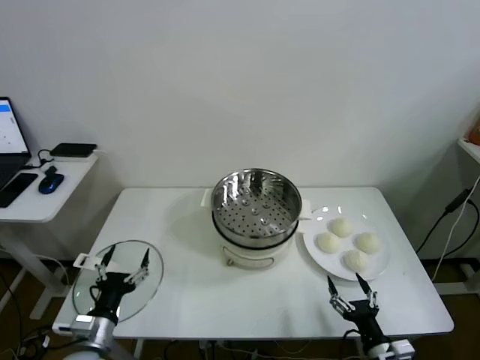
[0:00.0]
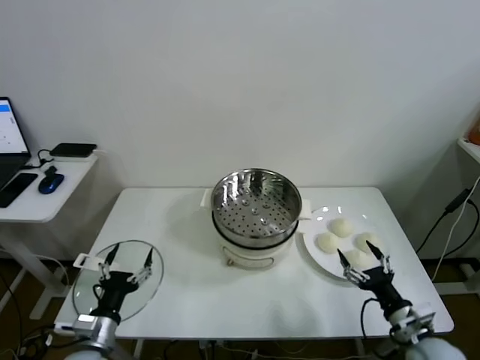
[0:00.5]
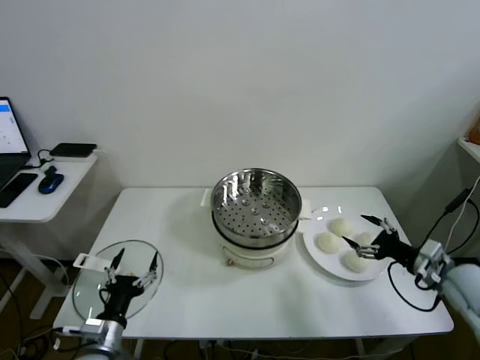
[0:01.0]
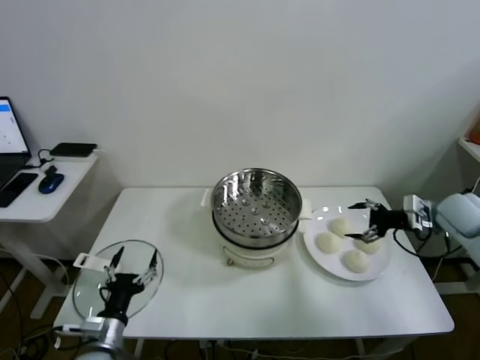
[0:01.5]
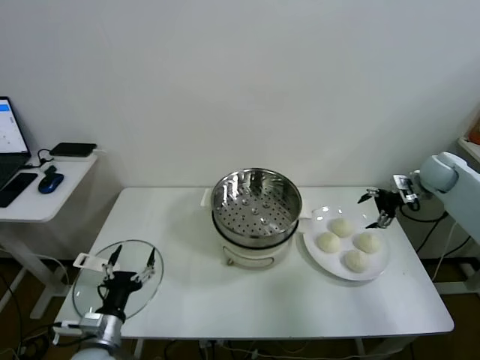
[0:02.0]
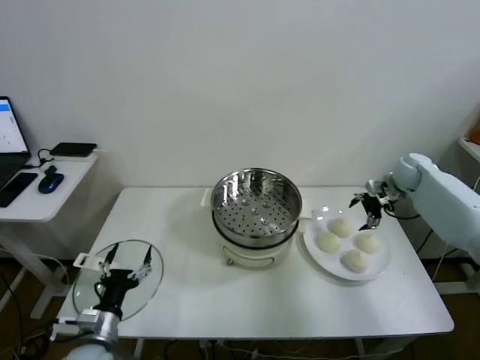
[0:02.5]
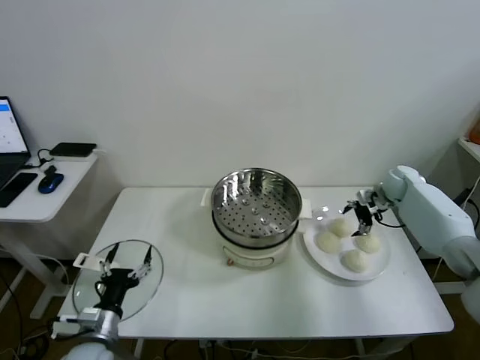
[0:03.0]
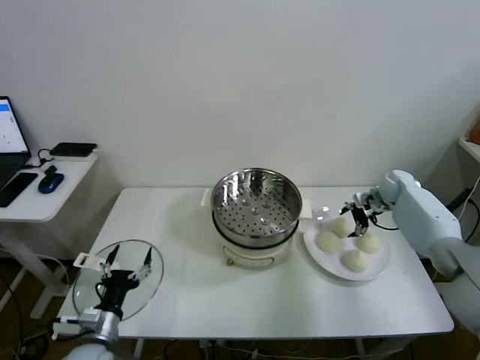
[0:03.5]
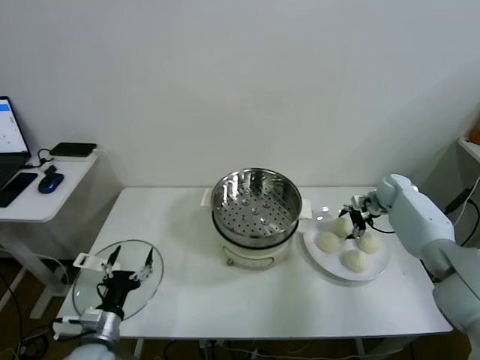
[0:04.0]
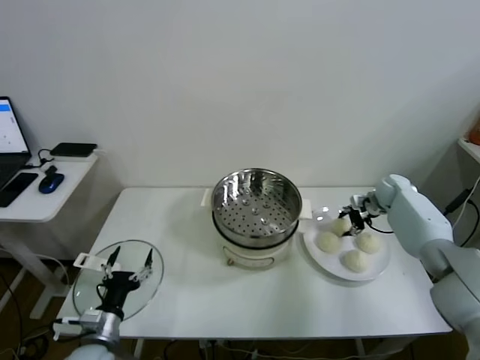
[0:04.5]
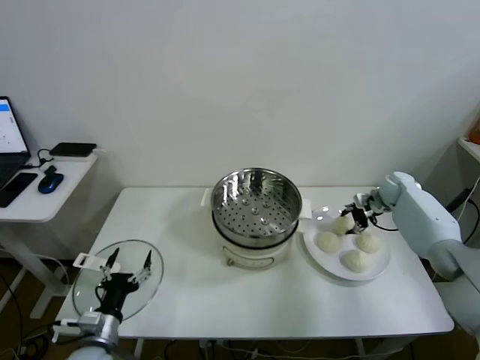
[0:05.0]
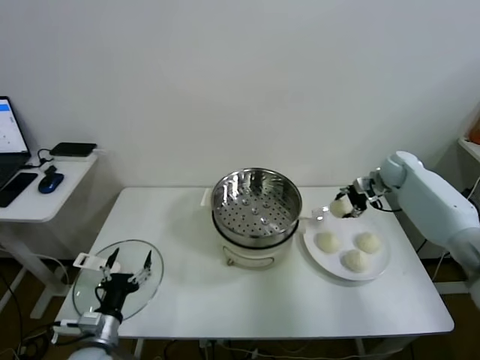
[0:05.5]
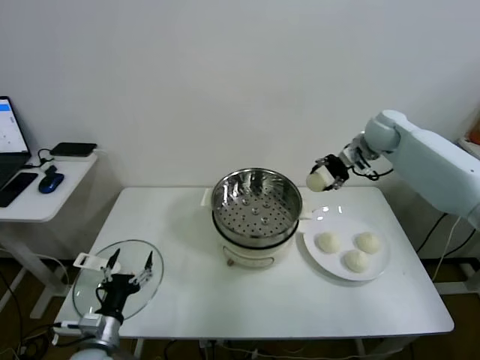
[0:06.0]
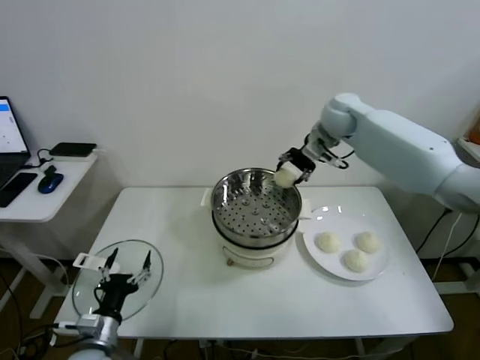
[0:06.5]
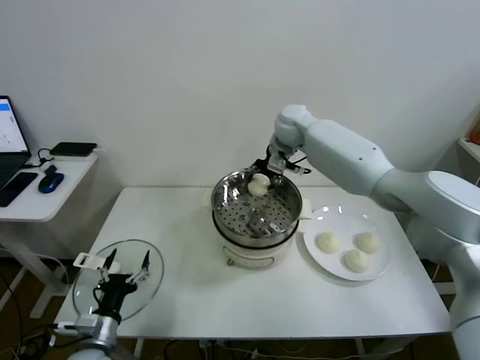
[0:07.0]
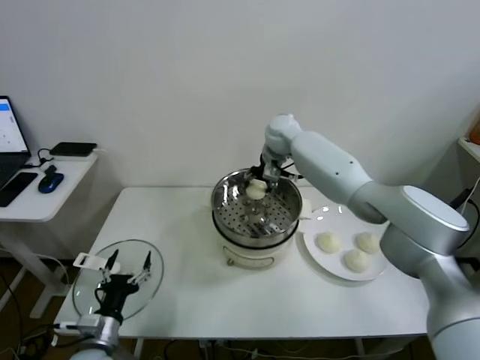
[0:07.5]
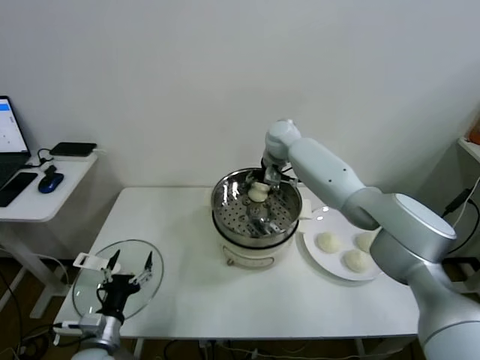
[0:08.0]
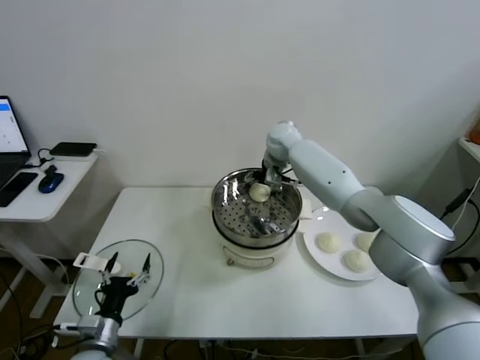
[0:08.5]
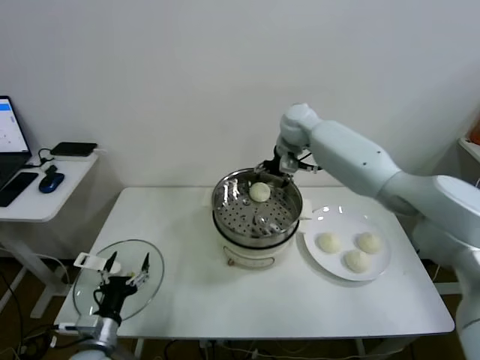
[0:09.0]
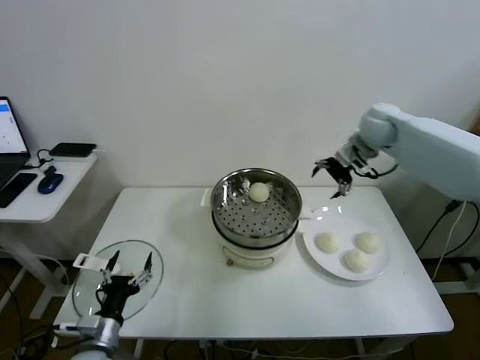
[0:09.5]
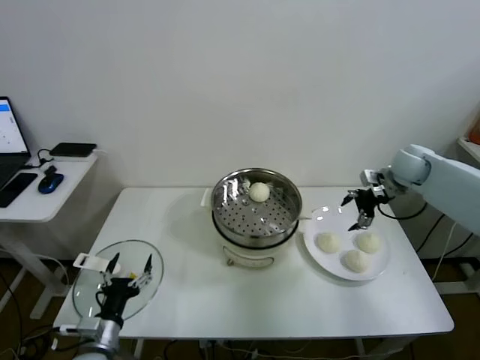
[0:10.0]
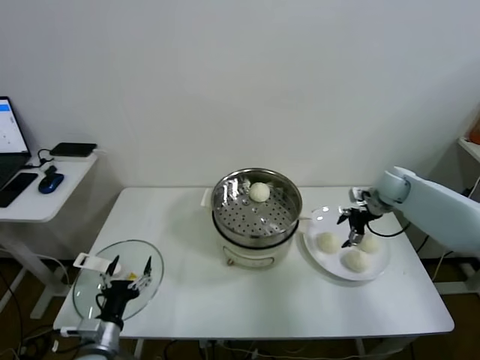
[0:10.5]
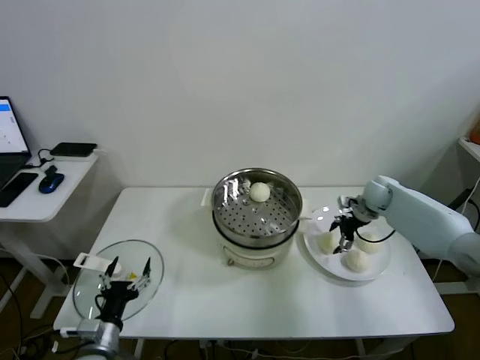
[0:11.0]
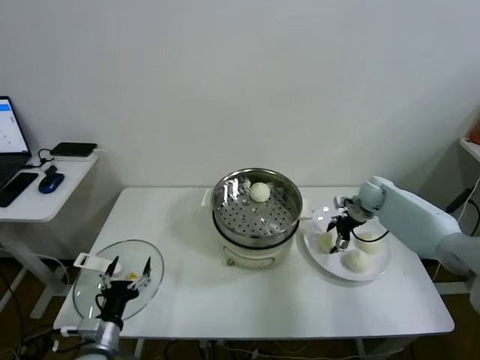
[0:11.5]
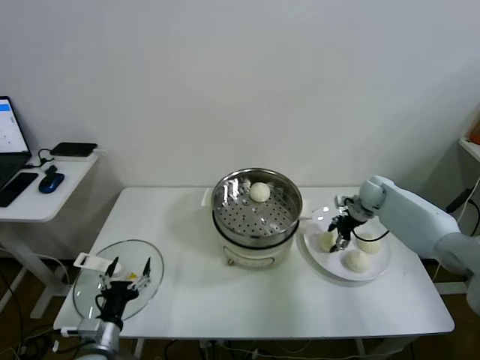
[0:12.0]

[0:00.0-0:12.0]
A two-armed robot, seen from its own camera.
Task of the whole recording: take steamed baozi put them in steamer.
Step, 0:00.0 to 0:04.0: Grasp the baozi in the plate with right gripper.
Step, 0:04.5 to 0:08.5: Place the baozi on the steamer with right gripper.
Step, 0:09.0 to 0:11.5: Grasp the baozi in the plate with right gripper.
0:02.0 to 0:04.0: The right gripper is displaced downward by about 10 cm.
0:04.0 to 0:06.0: The right gripper goes roughly 25 cm upward and to the left, and closes.
0:06.0 to 0:08.0: The right gripper goes about 20 cm to the left, and opens up.
0:08.0 to 0:10.0: The right gripper heads to the right, covering approximately 30 cm, and opens up.
0:10.0 to 0:12.0: The right gripper travels downward by some 15 cm, and closes its fingers.

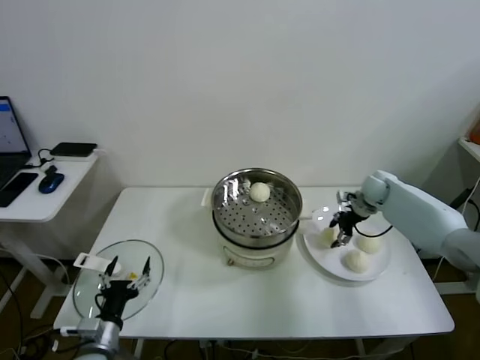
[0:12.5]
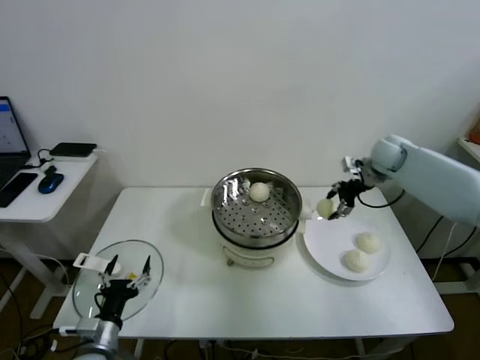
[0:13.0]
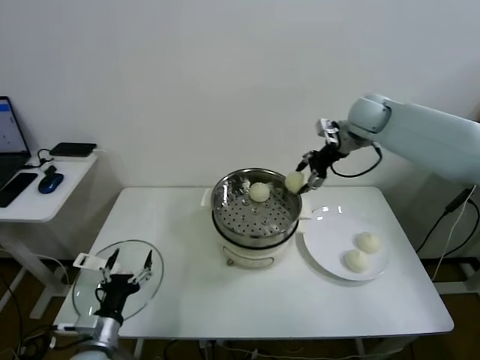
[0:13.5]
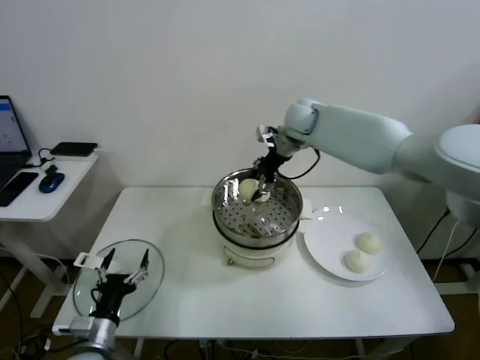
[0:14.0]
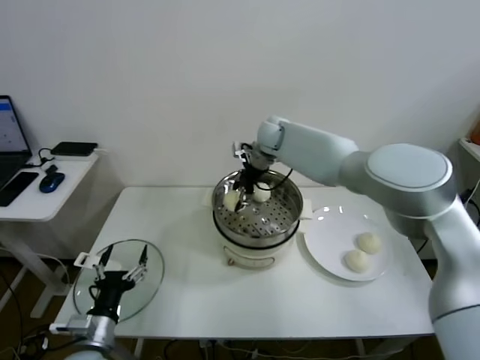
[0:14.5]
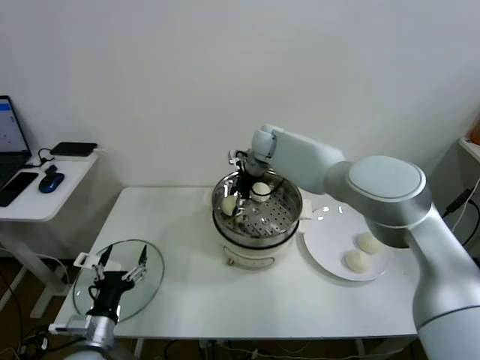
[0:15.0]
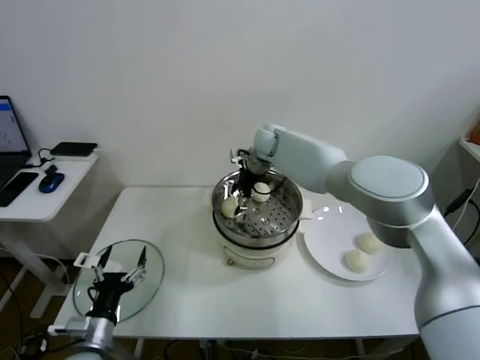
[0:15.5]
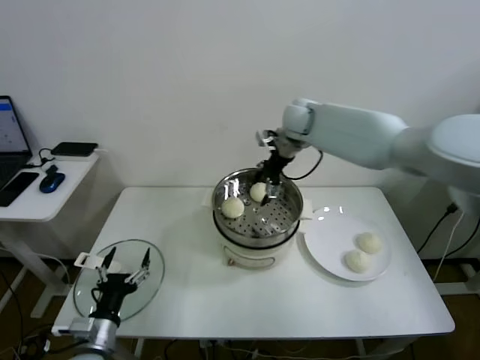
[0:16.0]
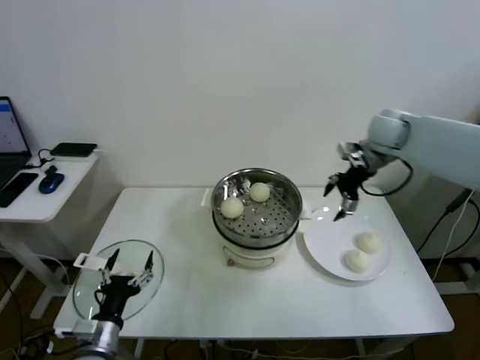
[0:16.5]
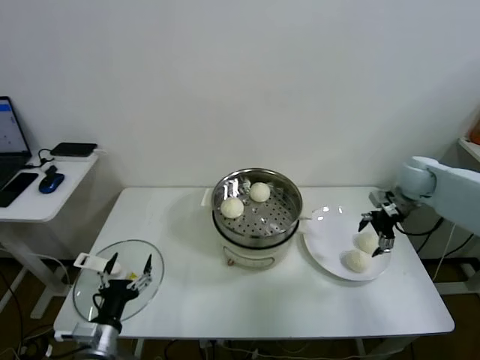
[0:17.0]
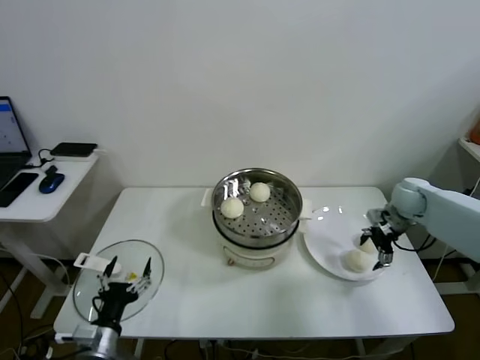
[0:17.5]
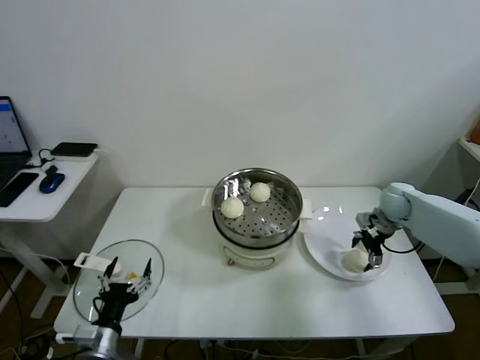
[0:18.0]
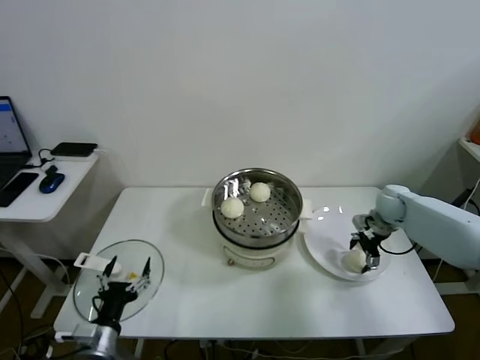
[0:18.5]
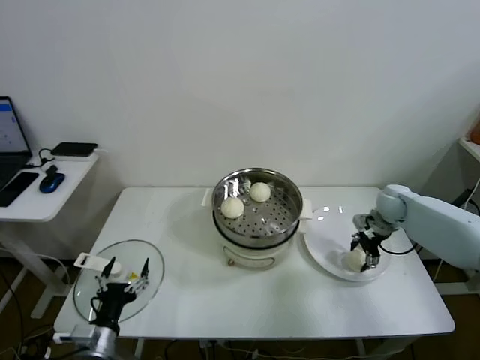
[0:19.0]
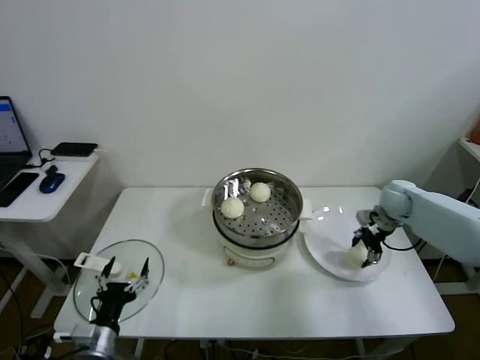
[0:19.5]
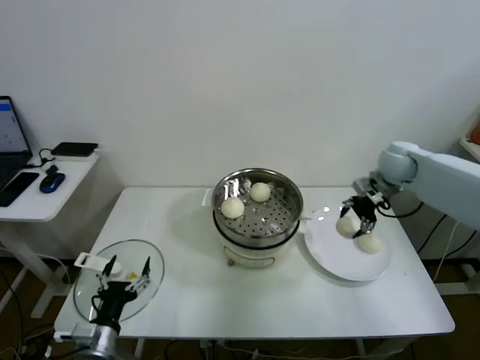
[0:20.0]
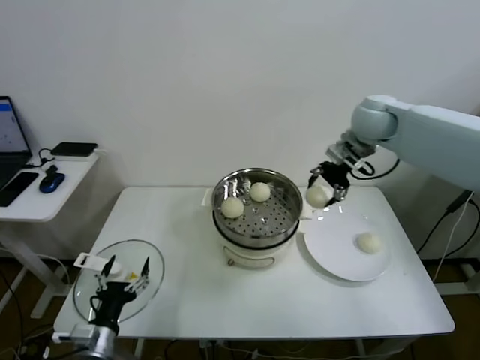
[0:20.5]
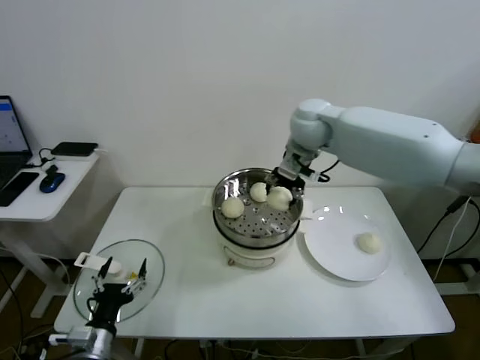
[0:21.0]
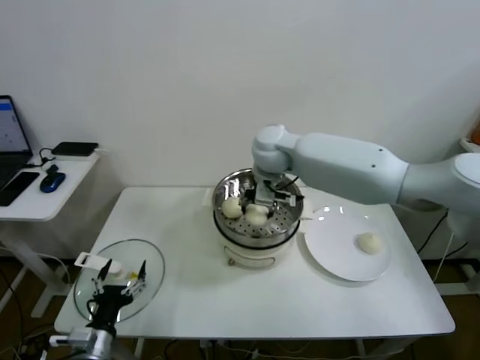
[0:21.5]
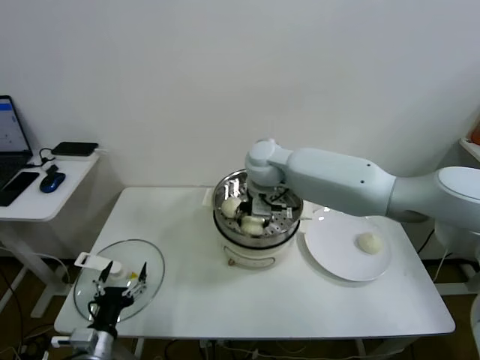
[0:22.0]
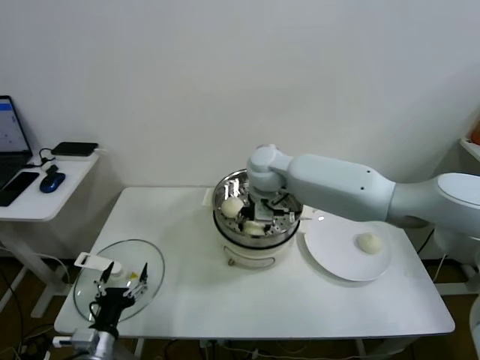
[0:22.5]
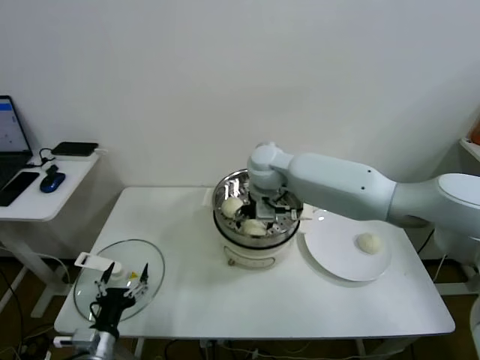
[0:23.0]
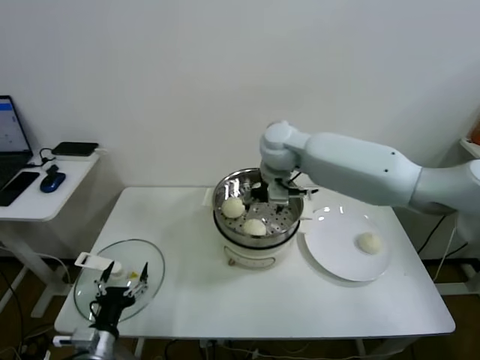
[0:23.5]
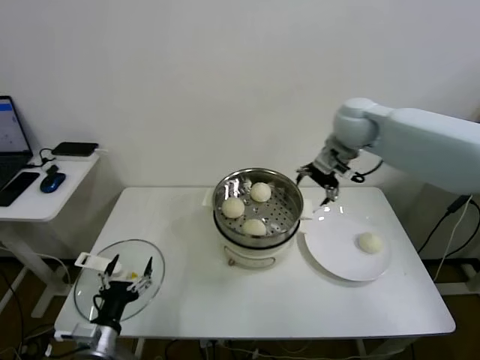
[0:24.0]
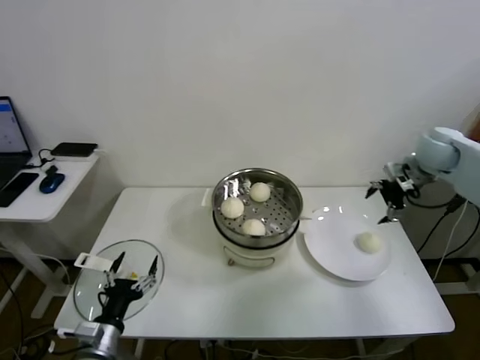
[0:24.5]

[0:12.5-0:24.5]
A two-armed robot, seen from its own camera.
Task of the whole recording: take steamed baozi put them in steamer.
Step, 0:12.5 to 0:15.5: Place the baozi on the steamer with right gripper.
Step, 0:16.0 to 0:19.0: Grasp the baozi in the plate with right gripper.
Step, 0:19.5 to 0:23.0: Place the baozi on the steamer with right gripper.
0:12.5 to 0:14.5: The right gripper shifts roughly 35 cm to the left and upward.
0:14.5 to 0:16.5: The right gripper shifts some 25 cm to the right, and opens.
0:16.5 to 0:18.5: The right gripper travels downward by some 20 cm.
0:18.5 to 0:20.5: The right gripper is displaced upward and to the left by roughly 30 cm, and closes up.
0:20.5 to 0:22.5: The right gripper heads to the left and downward, covering some 25 cm.
0:22.5 to 0:24.5: The right gripper is displaced to the right by some 40 cm, and opens up.

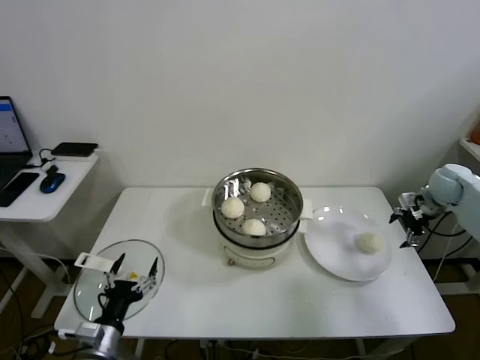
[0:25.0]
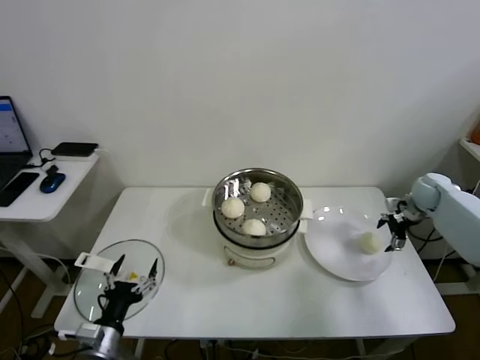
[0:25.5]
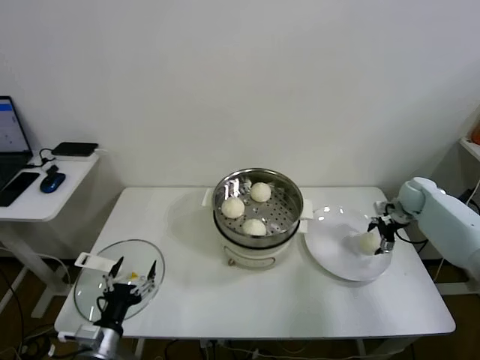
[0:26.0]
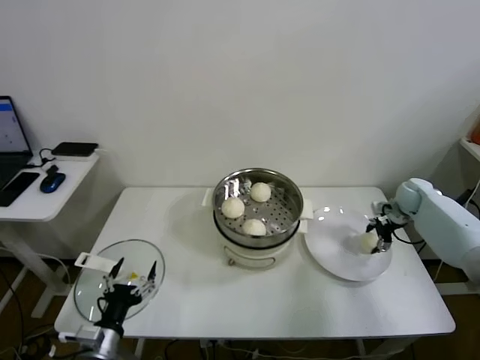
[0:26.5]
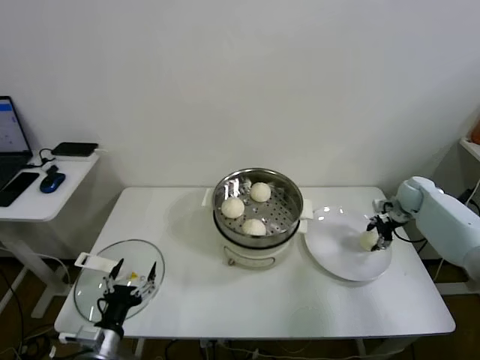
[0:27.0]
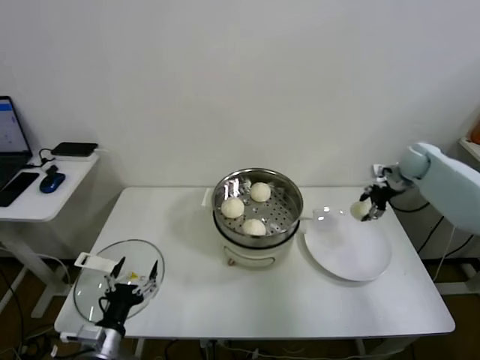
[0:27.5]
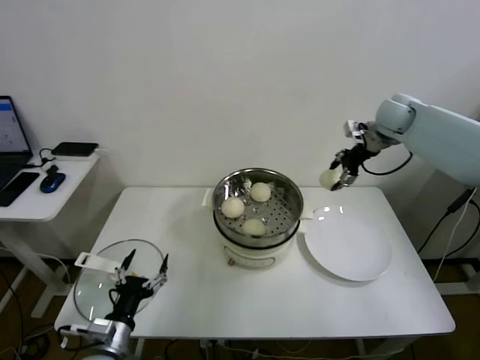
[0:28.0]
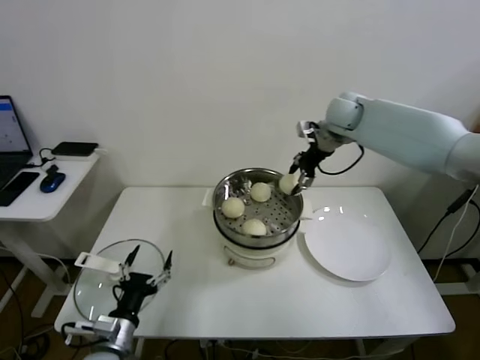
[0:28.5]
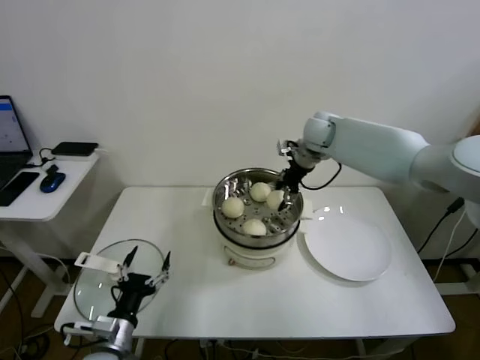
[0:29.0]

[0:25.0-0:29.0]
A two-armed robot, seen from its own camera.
Task of the whole recording: take steamed baozi put them in steamer.
0:25.0 to 0:27.0: The right gripper is displaced downward by about 10 cm, and closes.
0:27.0 to 0:29.0: The right gripper moves to the left and upward, some 35 cm.
